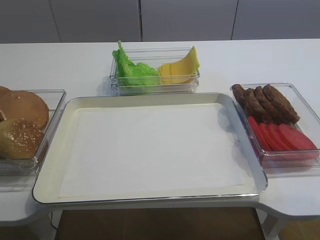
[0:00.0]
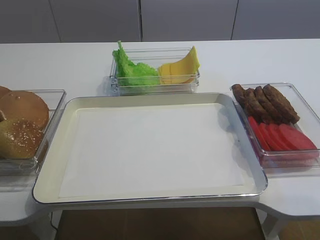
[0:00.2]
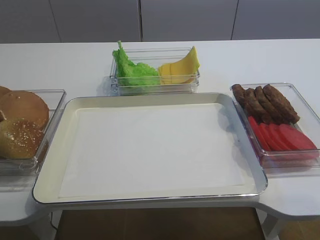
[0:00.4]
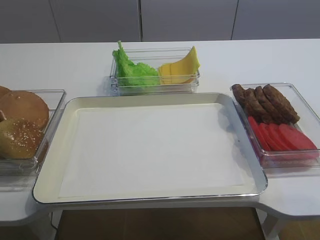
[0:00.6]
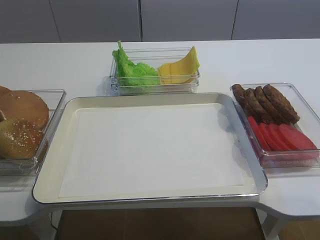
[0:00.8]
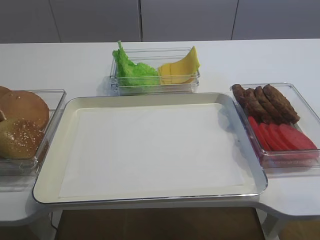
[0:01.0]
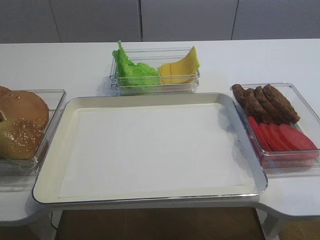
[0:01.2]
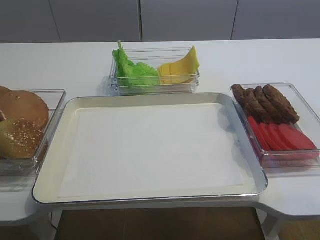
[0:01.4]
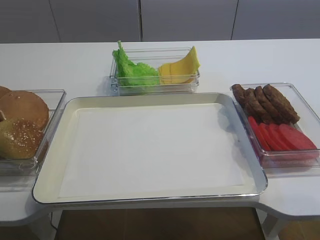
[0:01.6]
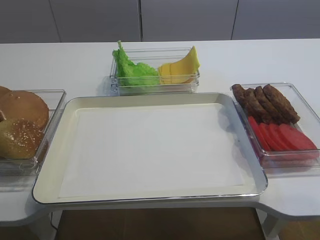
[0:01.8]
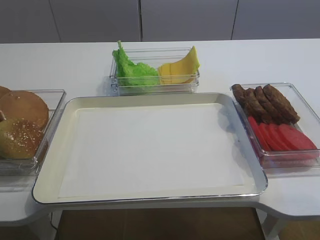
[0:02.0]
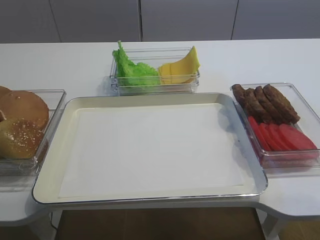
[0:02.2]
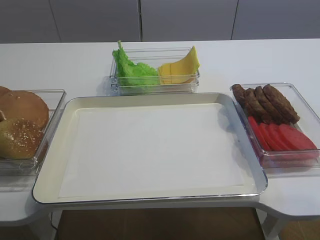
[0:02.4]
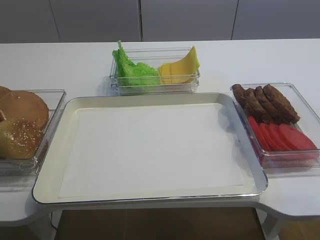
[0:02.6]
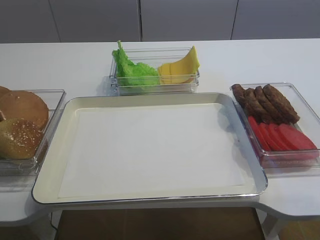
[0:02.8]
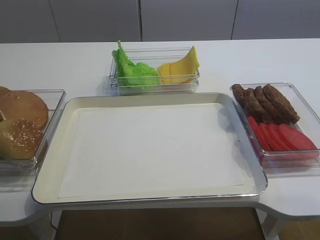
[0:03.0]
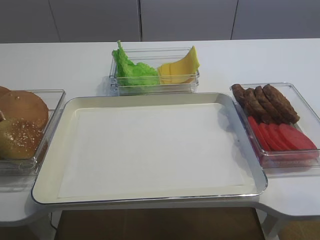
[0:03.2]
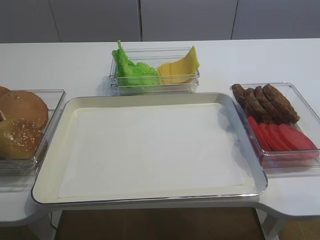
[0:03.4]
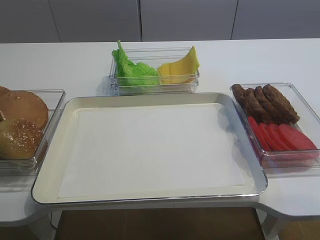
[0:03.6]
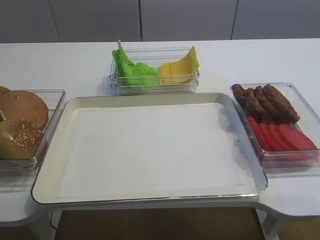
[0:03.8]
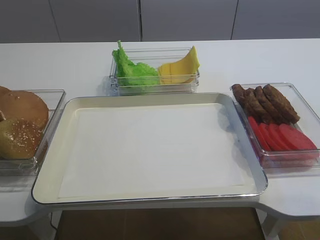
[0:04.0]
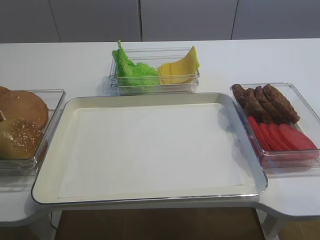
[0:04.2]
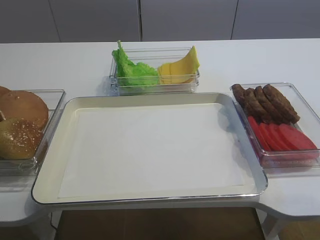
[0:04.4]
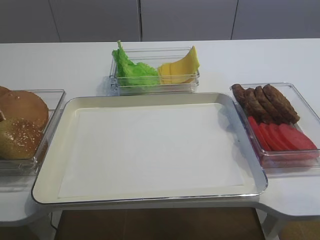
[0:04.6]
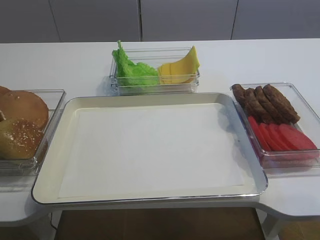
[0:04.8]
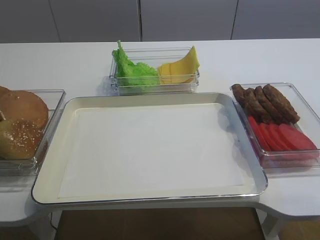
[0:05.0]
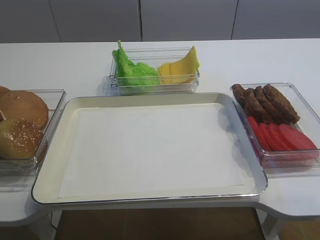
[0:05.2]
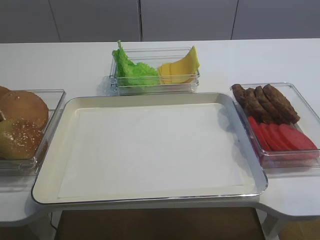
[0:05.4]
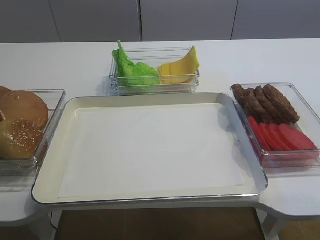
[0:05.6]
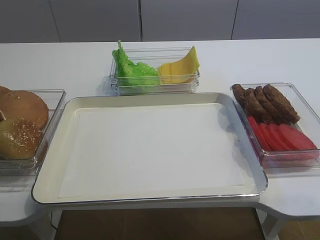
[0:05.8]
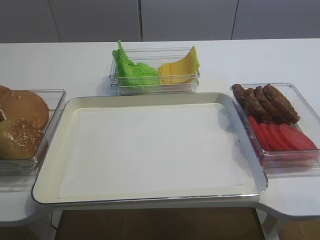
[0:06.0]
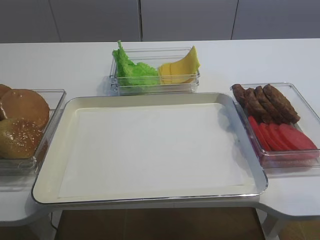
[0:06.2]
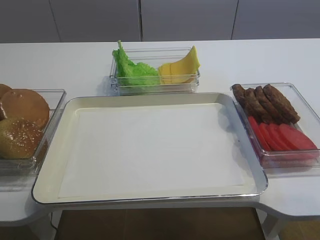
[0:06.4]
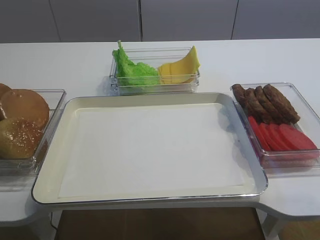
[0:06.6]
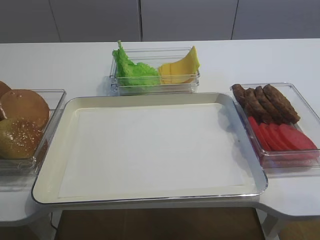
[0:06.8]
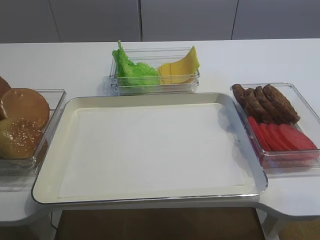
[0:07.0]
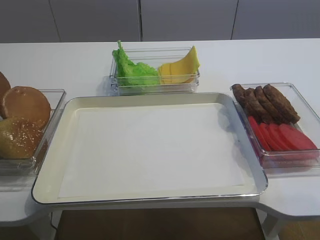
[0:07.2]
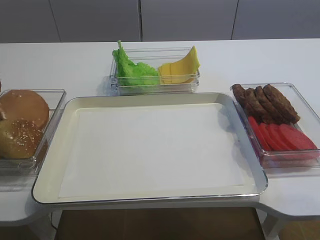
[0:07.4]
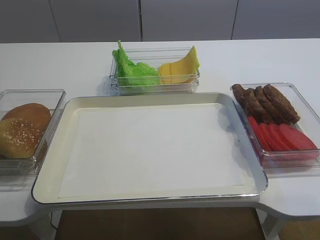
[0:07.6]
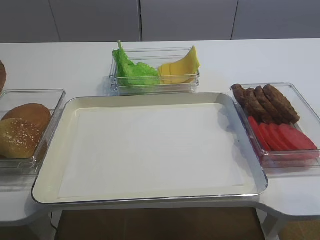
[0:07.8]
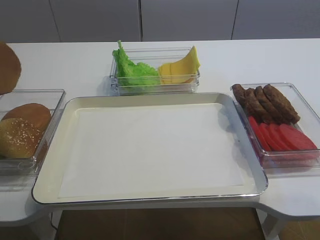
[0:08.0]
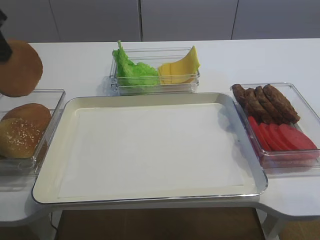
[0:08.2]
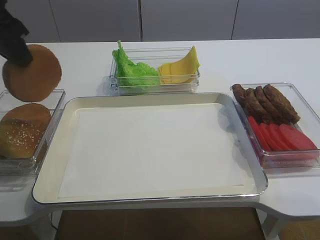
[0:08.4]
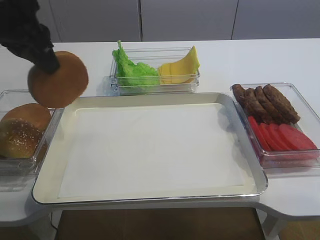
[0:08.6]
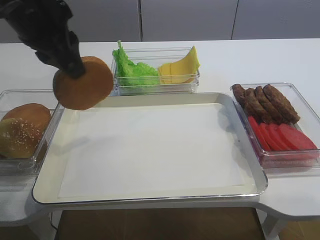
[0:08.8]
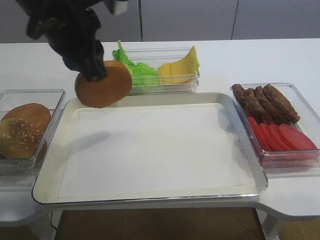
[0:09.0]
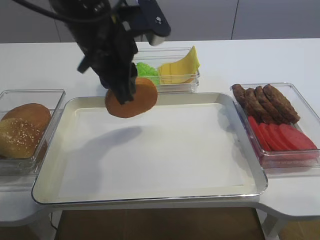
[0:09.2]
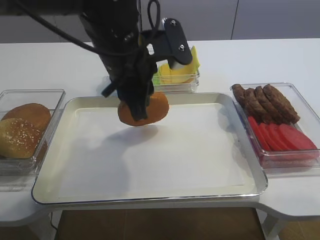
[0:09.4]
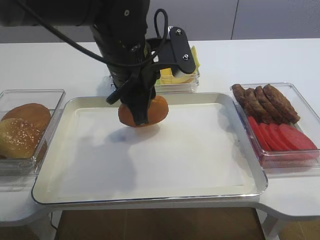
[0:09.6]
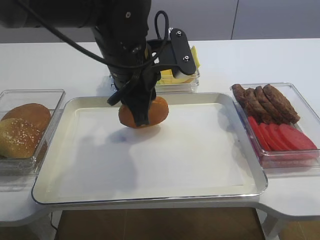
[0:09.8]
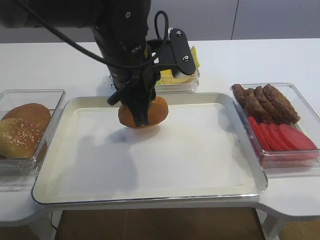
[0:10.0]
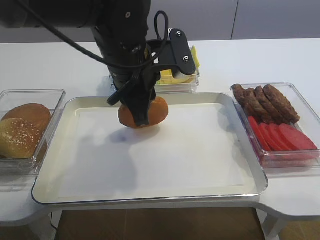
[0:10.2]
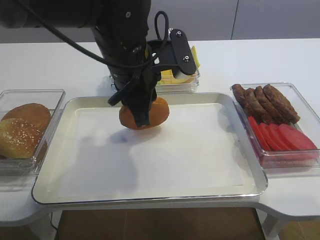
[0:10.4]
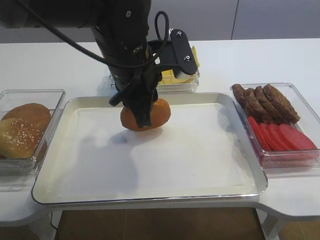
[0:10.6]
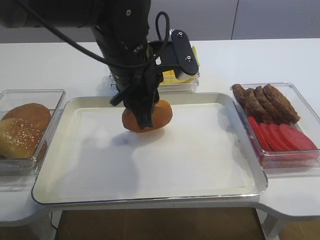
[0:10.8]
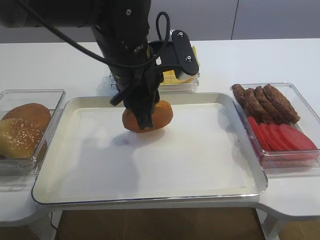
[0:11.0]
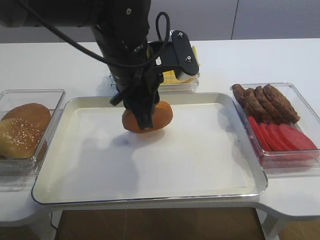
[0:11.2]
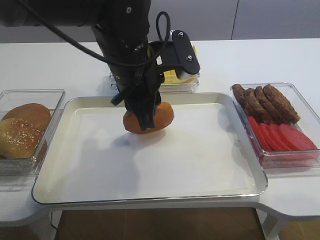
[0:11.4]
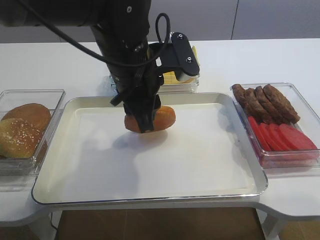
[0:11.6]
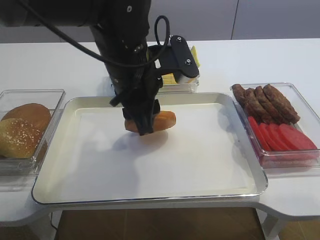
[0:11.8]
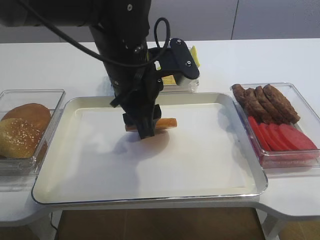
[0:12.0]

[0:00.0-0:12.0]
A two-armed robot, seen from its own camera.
6.0 to 7.6 s: The left gripper heads upward, covering roughly 5 cm.
7.6 to 9.0 s: The left gripper travels to the right by about 25 cm.
9.0 to 10.4 s: The left gripper is displaced to the right and downward by approximately 10 cm.
10.4 to 12.0 s: The left gripper opens up.

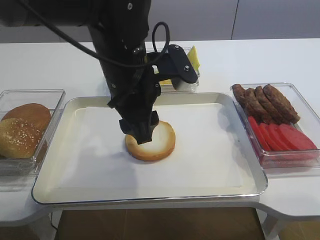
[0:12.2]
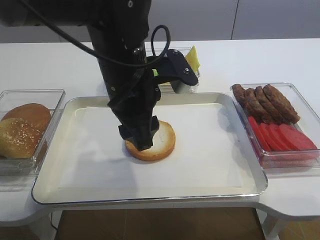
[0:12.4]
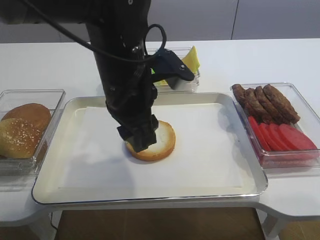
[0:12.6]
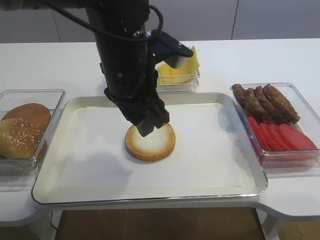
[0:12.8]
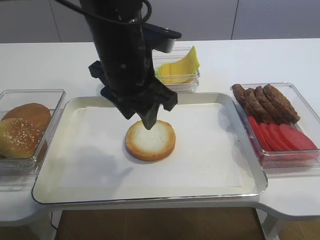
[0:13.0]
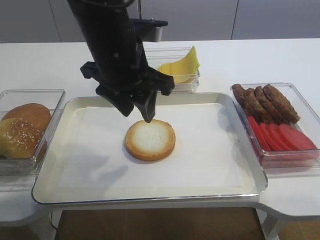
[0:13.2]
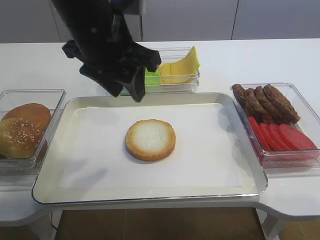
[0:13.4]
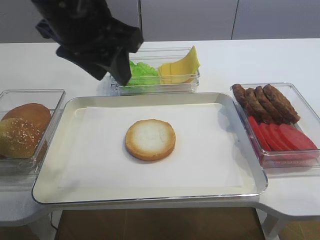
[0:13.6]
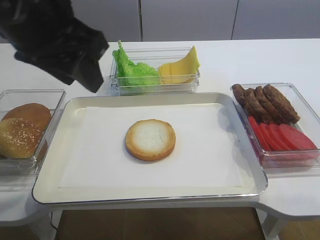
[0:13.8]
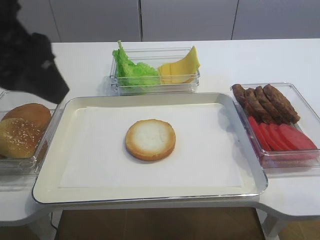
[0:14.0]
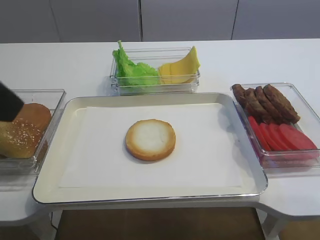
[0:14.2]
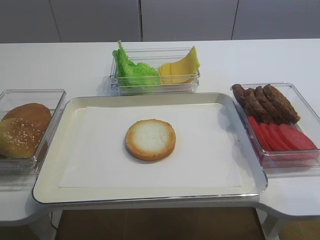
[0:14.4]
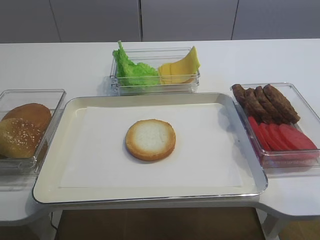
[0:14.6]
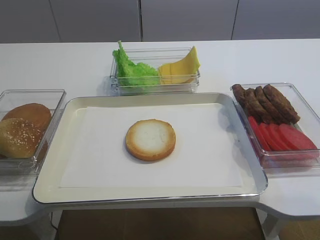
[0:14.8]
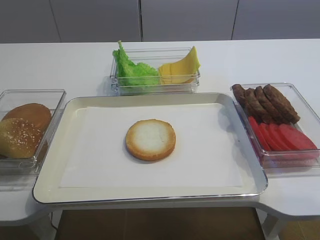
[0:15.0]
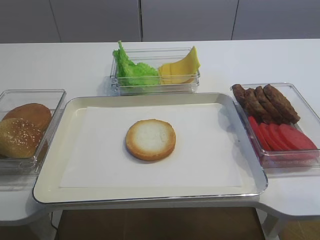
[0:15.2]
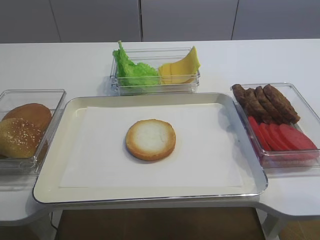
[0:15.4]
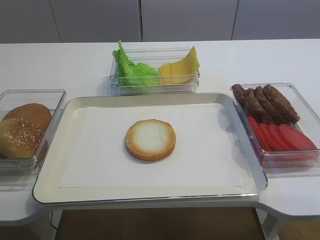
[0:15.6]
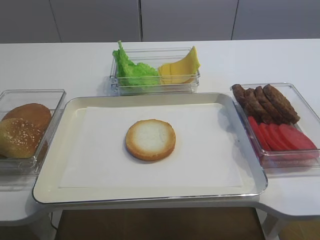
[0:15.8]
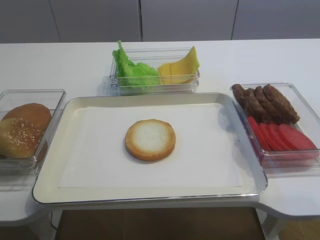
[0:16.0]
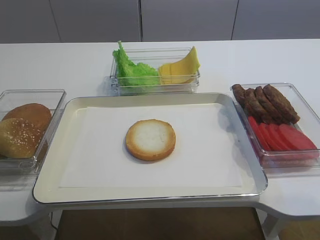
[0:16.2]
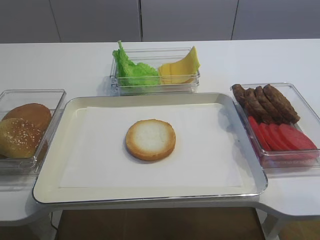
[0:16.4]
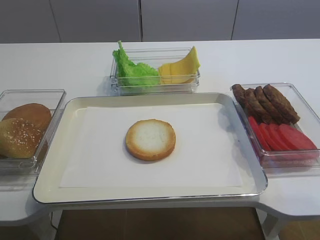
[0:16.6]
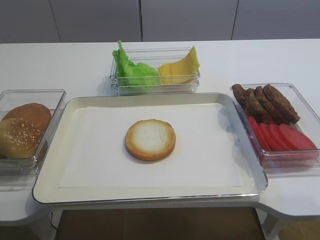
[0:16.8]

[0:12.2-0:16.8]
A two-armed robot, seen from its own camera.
12.2 to 13.8 s: The left gripper moves upward, to the left and backward, some 15 cm.
13.8 to 15.2 s: The left gripper is displaced backward and to the left by roughly 30 cm.

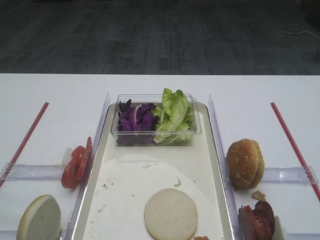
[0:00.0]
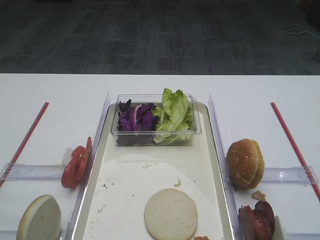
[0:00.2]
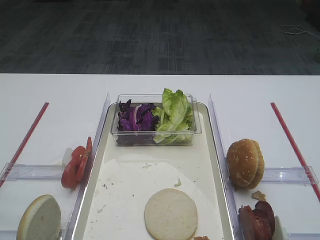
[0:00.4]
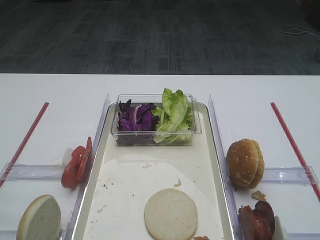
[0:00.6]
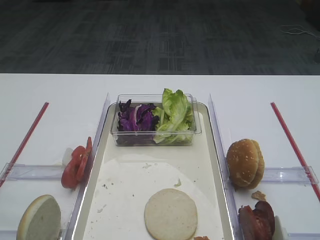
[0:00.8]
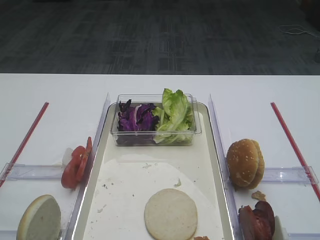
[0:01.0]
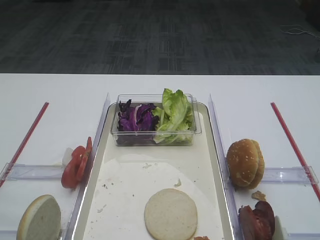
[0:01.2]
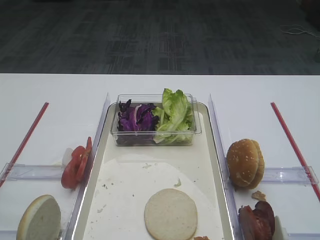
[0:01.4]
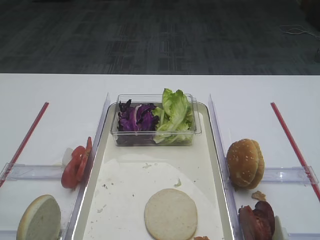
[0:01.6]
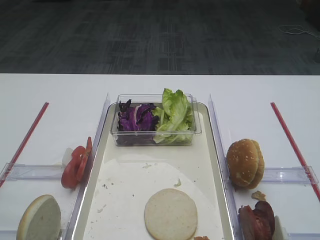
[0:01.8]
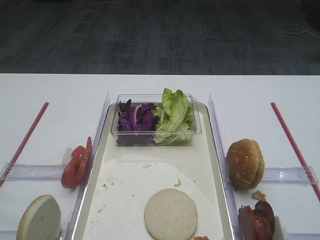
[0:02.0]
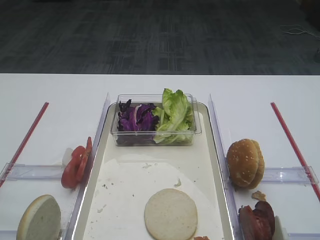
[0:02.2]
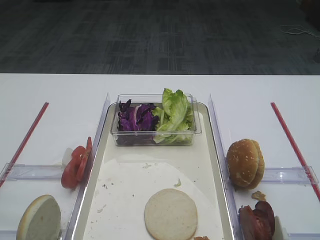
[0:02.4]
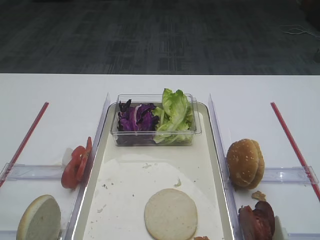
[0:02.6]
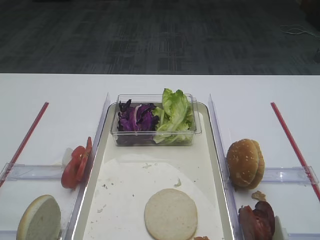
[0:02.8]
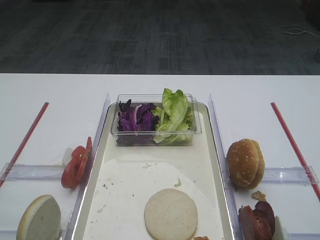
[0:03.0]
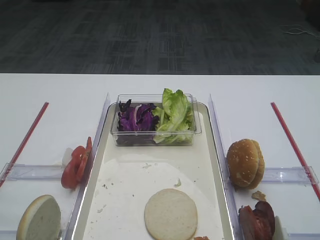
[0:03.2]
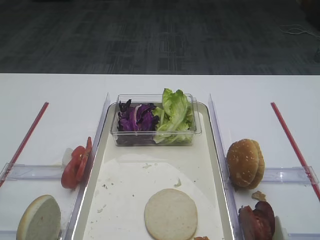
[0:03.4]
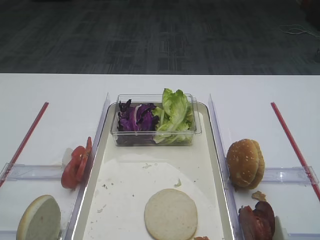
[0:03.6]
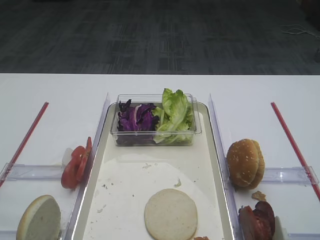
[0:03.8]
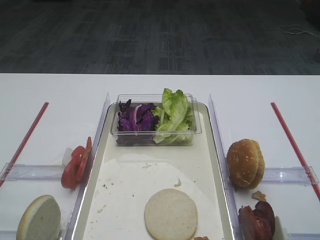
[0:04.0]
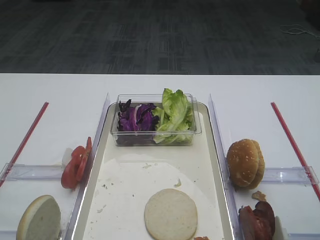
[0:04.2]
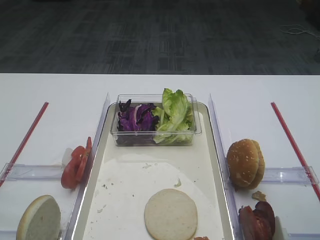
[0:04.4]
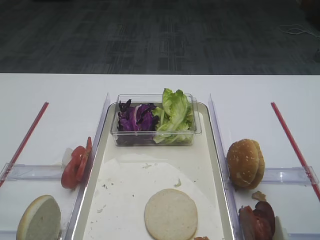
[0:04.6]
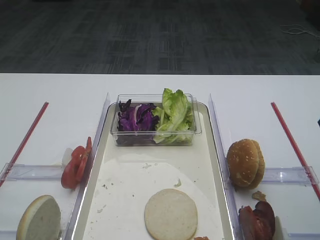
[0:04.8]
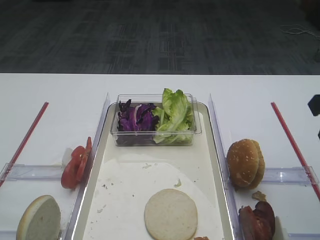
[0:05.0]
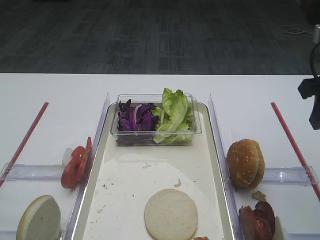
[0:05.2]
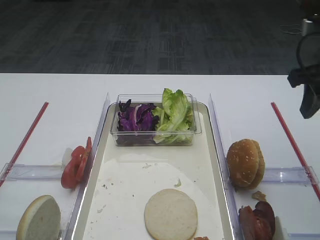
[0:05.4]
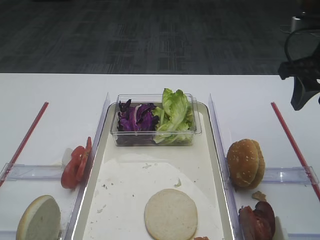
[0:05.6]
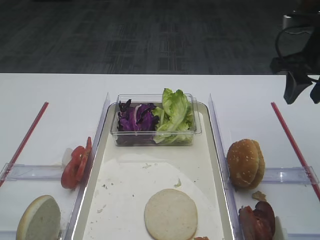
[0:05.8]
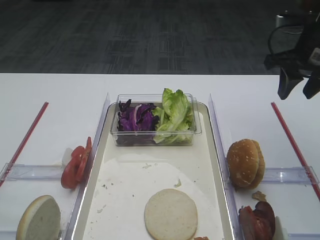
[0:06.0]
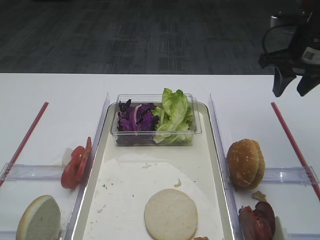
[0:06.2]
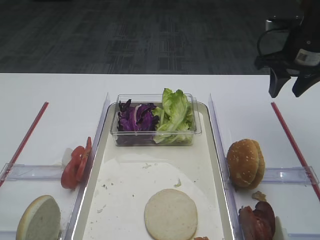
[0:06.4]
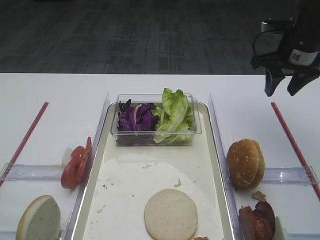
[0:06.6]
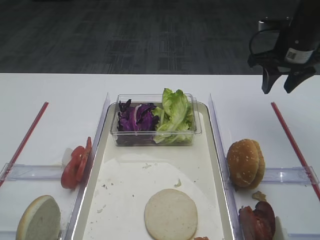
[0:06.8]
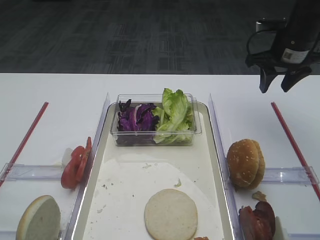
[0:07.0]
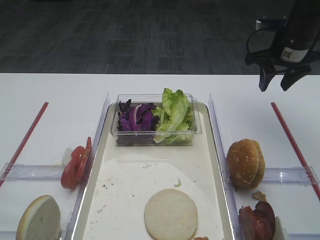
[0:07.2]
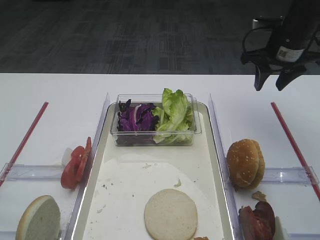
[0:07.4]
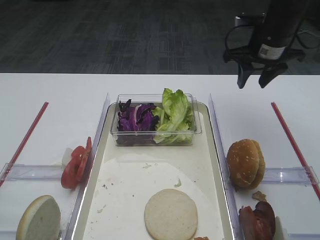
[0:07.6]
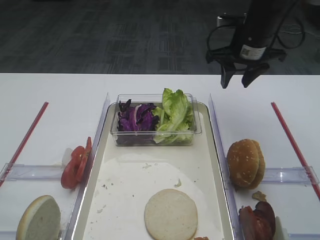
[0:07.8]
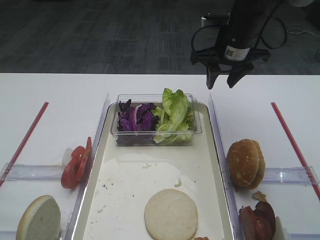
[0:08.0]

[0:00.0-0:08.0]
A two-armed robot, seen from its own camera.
4.8 to 6.4 s: The right gripper shifts some 20 cm forward.
6.4 to 8.0 s: The right gripper shifts about 10 cm to the left.
